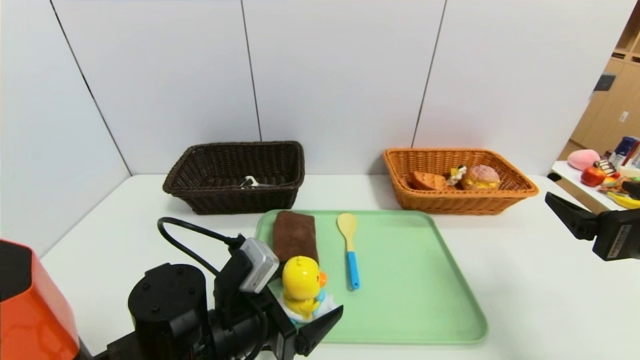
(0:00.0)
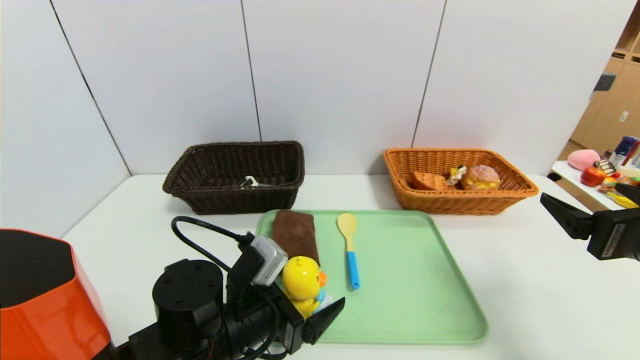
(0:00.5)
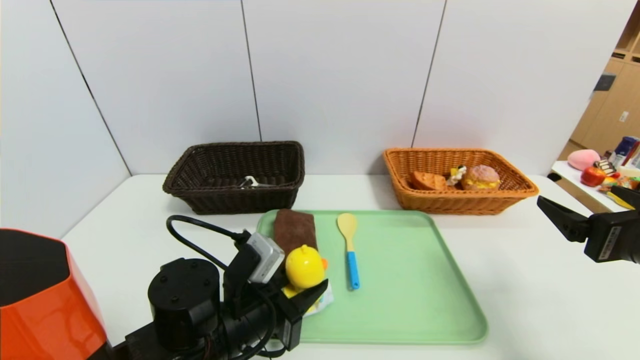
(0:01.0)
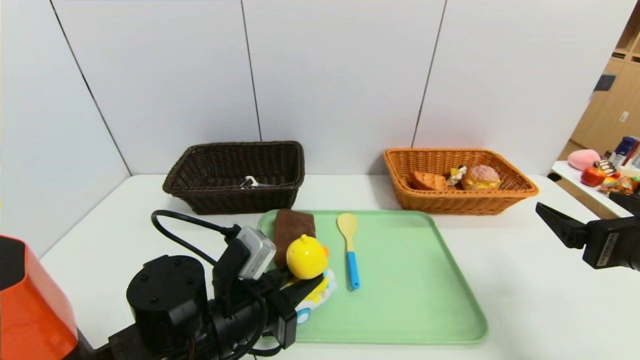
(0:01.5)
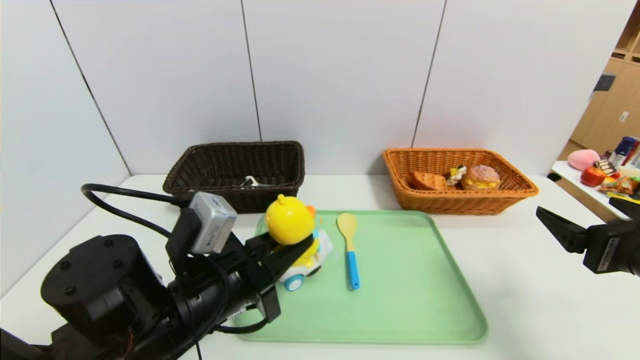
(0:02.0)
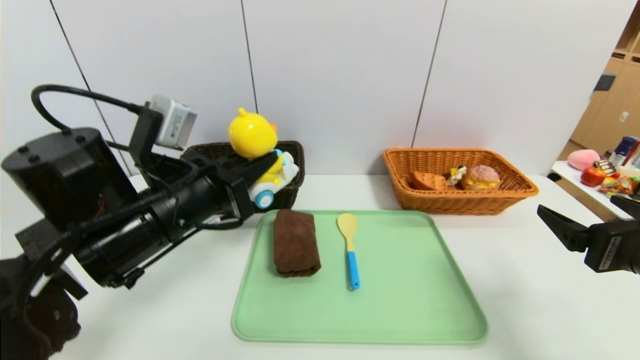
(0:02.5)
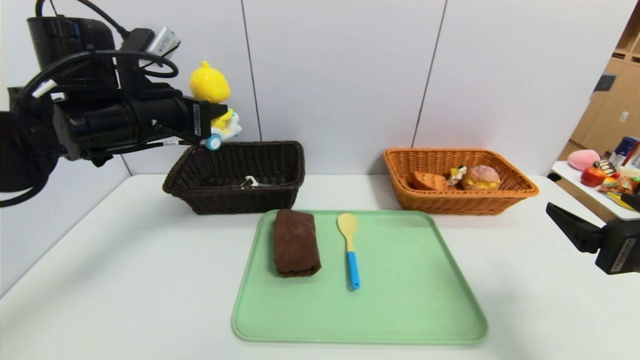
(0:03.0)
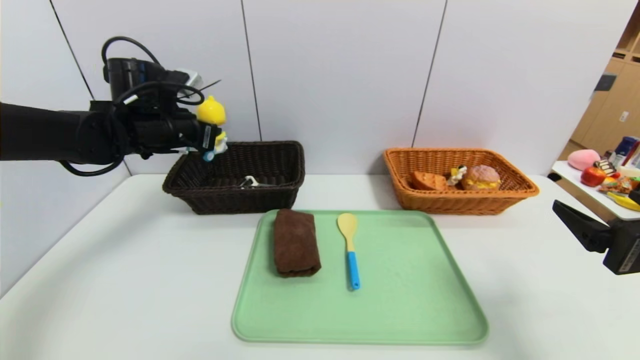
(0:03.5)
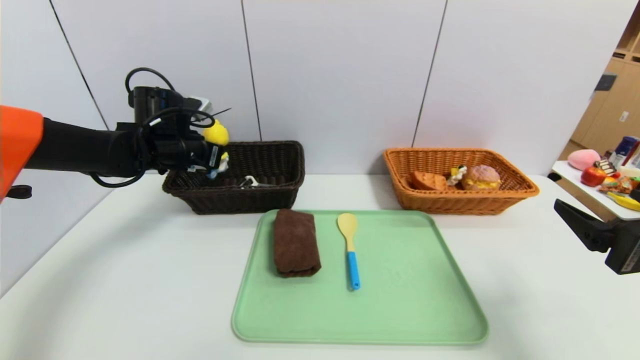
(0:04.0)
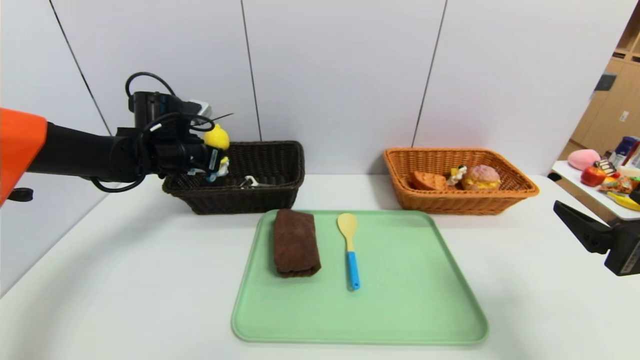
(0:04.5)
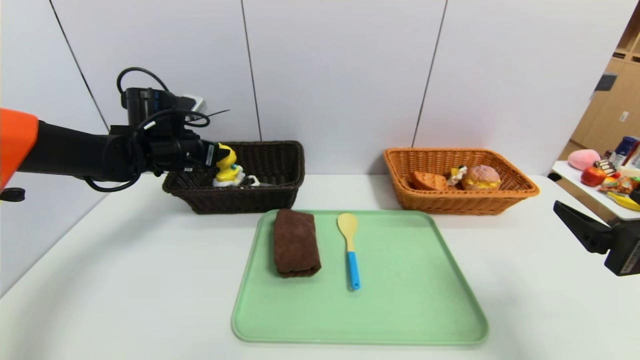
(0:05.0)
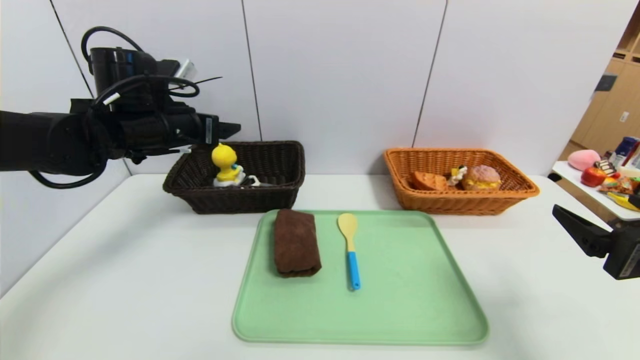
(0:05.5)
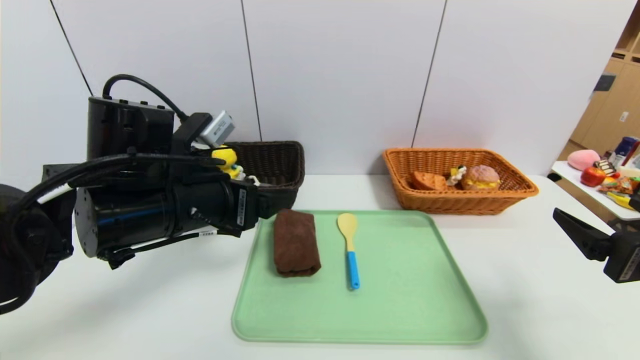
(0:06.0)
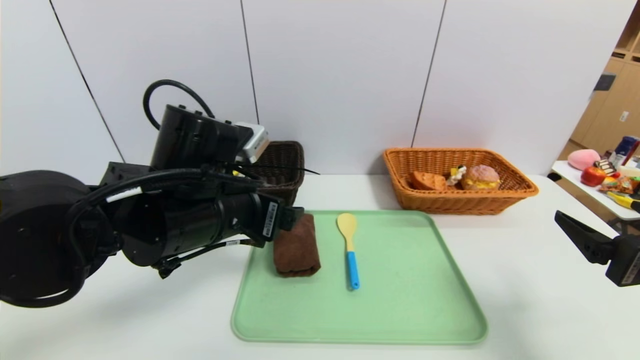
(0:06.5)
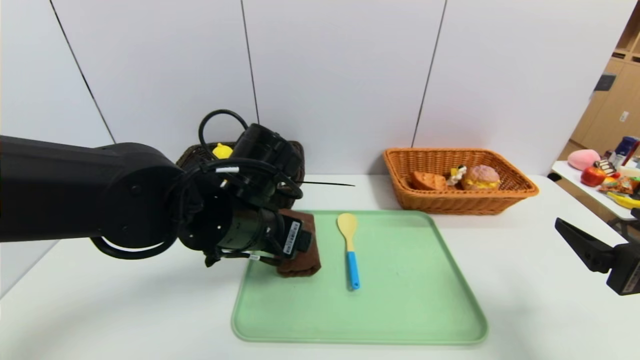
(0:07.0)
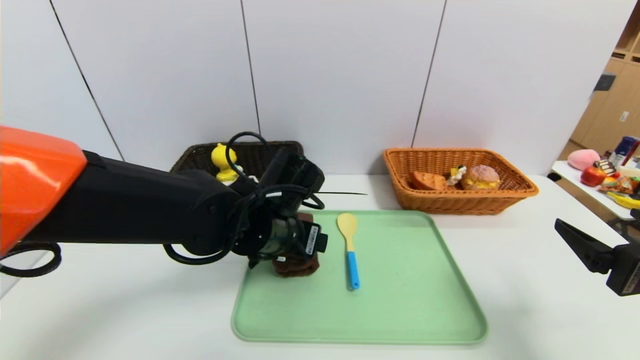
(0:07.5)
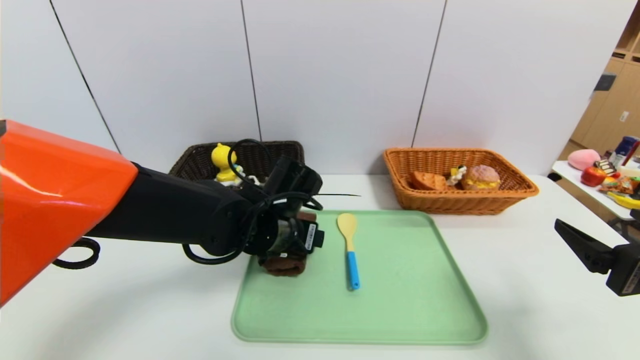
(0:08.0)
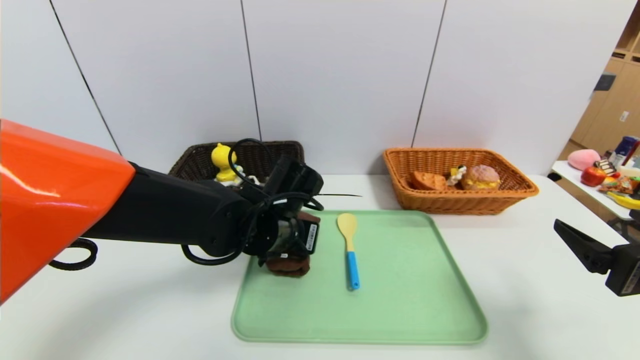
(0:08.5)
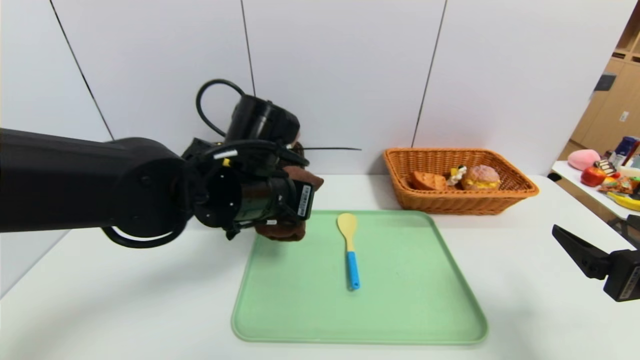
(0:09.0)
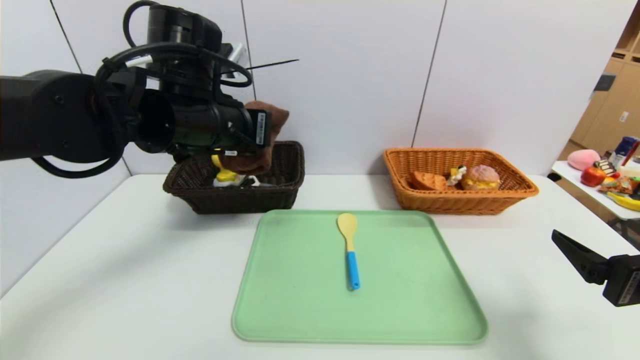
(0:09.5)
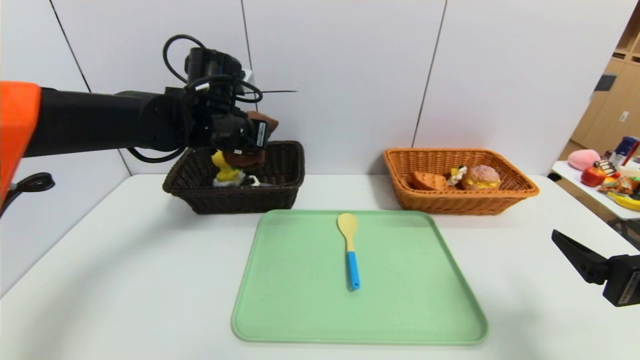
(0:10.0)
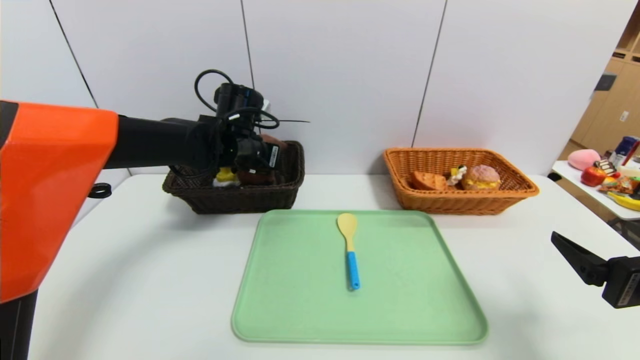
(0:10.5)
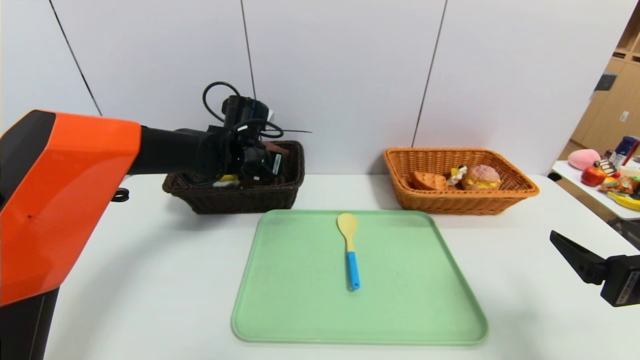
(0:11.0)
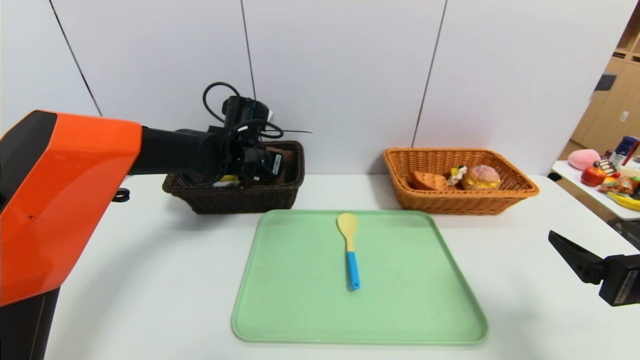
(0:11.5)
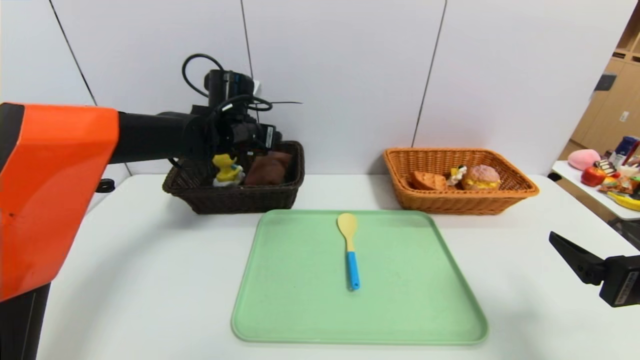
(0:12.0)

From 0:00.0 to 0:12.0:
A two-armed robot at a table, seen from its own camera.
Task of the whole recording: place the food in the right basket with the right gripper, and place the non food items in the left basket with the left gripper.
Step, from 0:00.0 to 0:04.5: Grasp the yellow duck and put it in the left basket.
Step, from 0:05.0 to 0:11.5: Grasp the brown towel and put it in the left basket.
From 0:00.0 to 0:02.0: The left gripper moves upward, approximately 5 cm, and closes up.
From 0:02.0 to 0:04.0: The left gripper heads forward and to the left, covering approximately 25 cm.
From 0:04.0 to 0:06.0: The left gripper travels backward and to the right by roughly 20 cm, and opens its fingers.
From 0:06.0 to 0:08.0: The left gripper travels to the right, downward and forward by approximately 15 cm.
From 0:08.0 to 0:10.0: The left gripper shifts about 15 cm upward, forward and to the left, and closes up.
From 0:10.0 to 0:12.0: The left gripper opens.

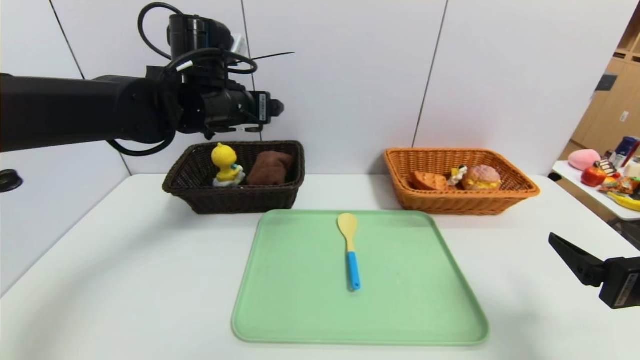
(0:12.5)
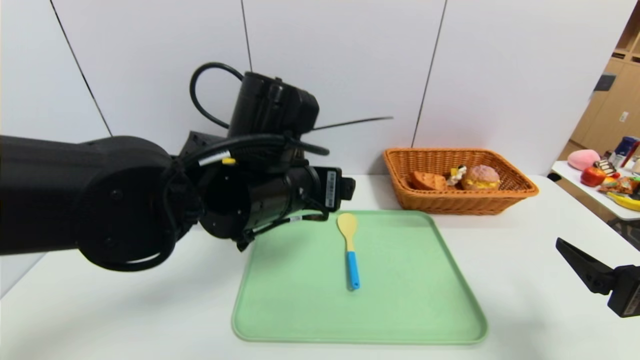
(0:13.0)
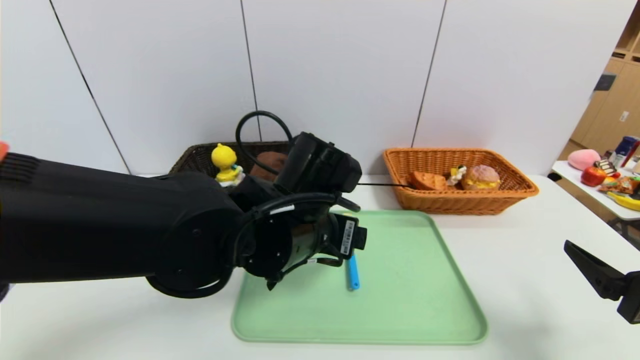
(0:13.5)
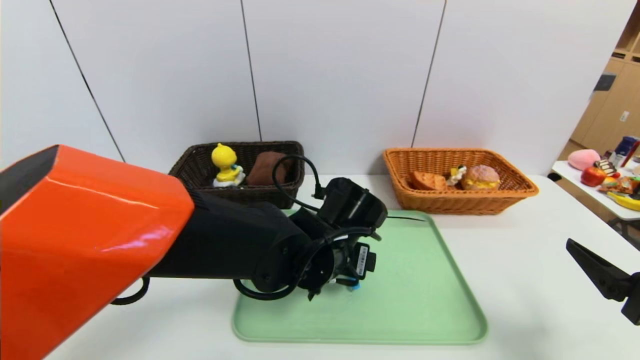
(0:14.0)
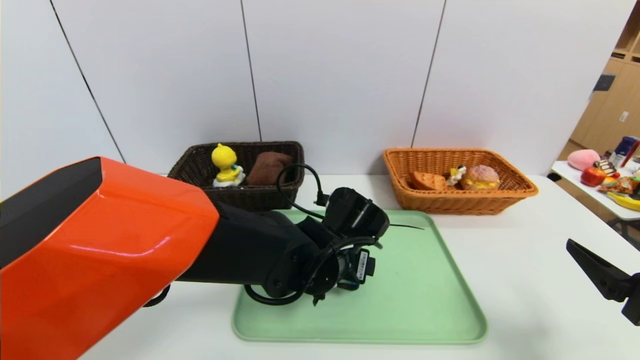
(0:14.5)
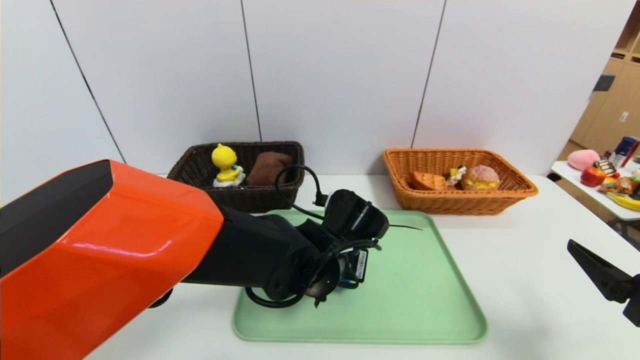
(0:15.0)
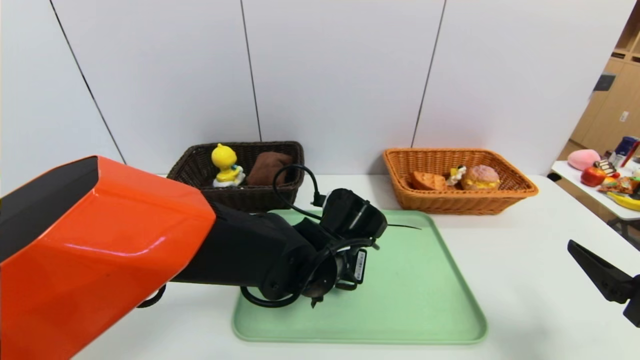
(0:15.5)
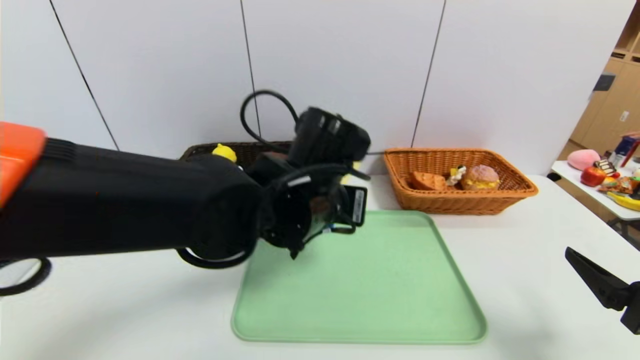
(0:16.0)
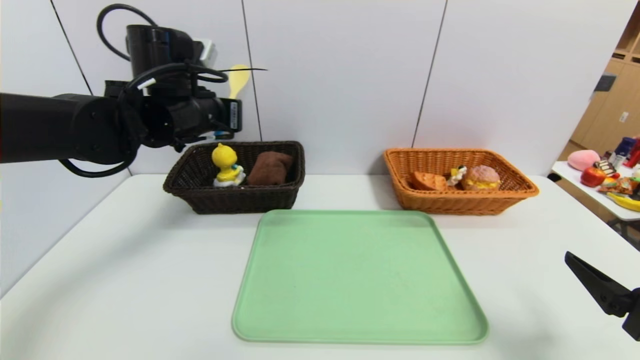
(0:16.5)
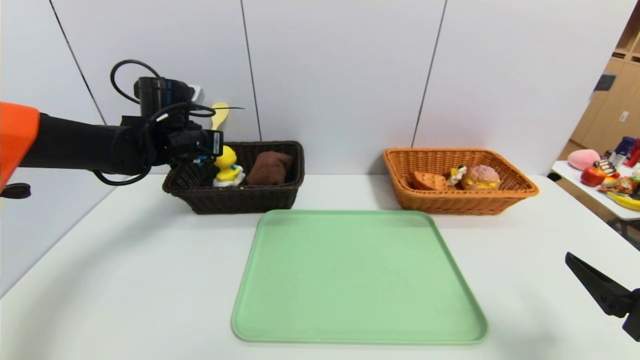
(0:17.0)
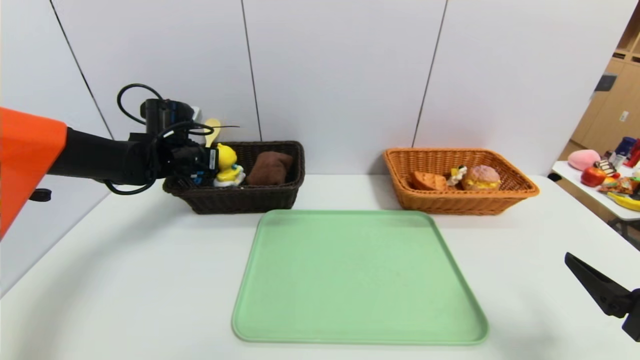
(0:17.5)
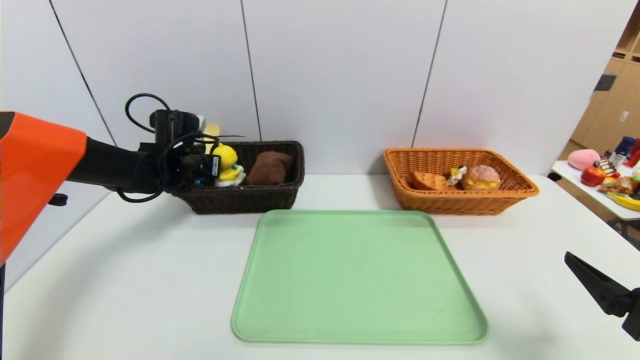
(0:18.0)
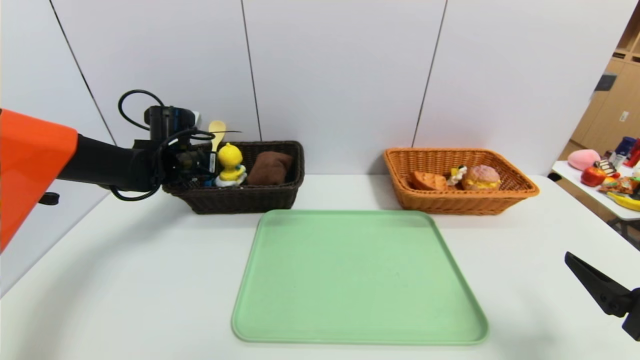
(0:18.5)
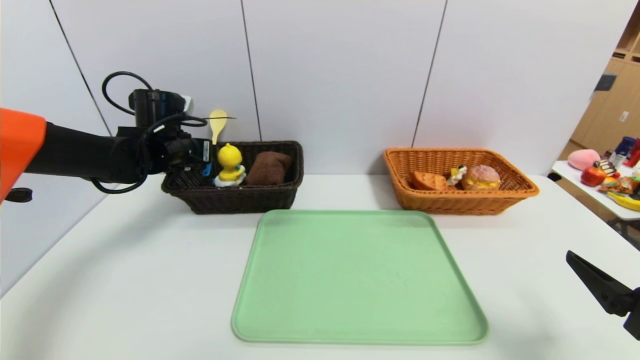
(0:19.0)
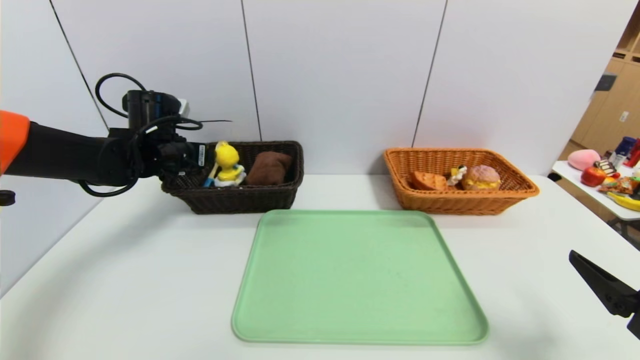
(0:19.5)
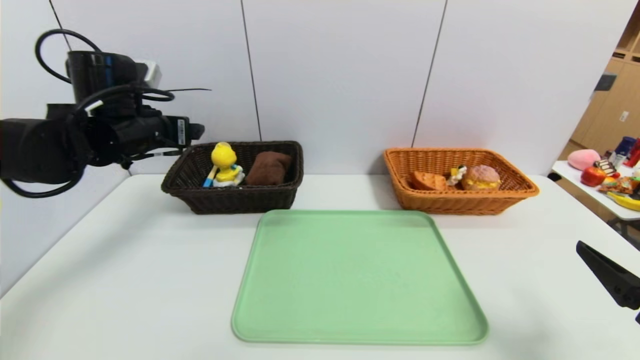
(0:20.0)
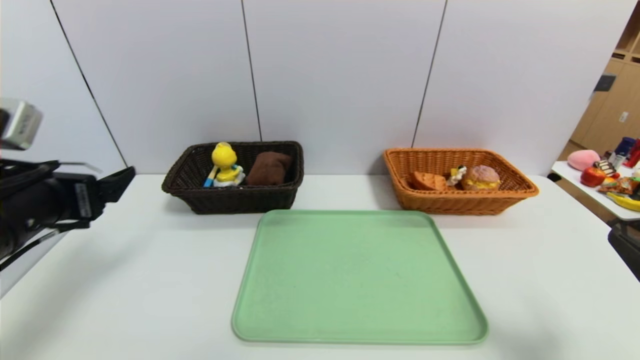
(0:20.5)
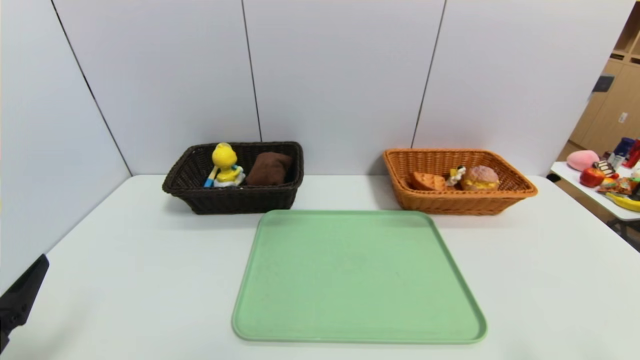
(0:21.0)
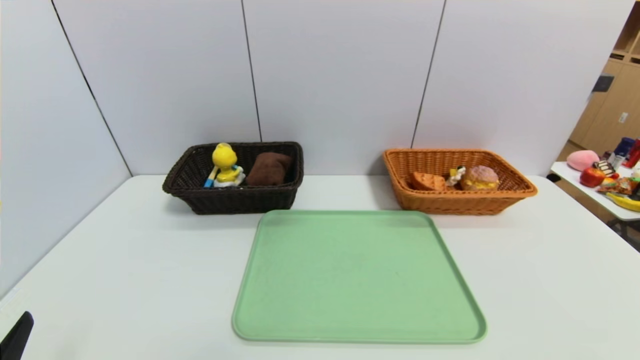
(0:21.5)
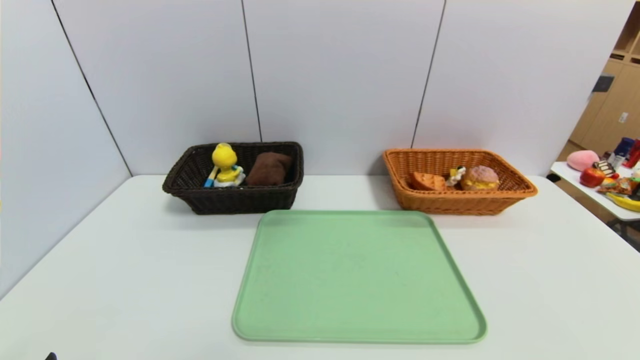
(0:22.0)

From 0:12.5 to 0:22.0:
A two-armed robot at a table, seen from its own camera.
Task of the whole recording: place the food in the right basket with the right gripper, and place the non food items in the left basket with the left gripper.
Step, from 0:12.5 to 0:19.5: Grasp the spoon and put it in the left basket.
From 0:12.5 to 0:14.5: The left gripper moves downward, to the right and backward, approximately 25 cm.
From 0:14.5 to 0:16.5: The left gripper heads to the left, upward and forward, covering approximately 25 cm, and closes its fingers.
From 0:16.5 to 0:18.0: The left gripper shifts roughly 15 cm downward, forward and to the left.
From 0:18.0 to 0:20.0: The left gripper is displaced upward and backward by approximately 15 cm, and opens.
From 0:20.0 to 0:22.0: The left gripper travels backward and downward by some 40 cm. The right gripper goes about 15 cm backward and downward.
